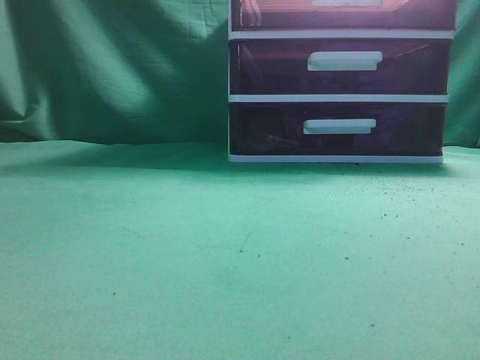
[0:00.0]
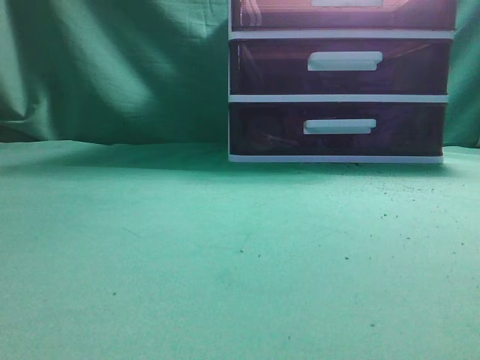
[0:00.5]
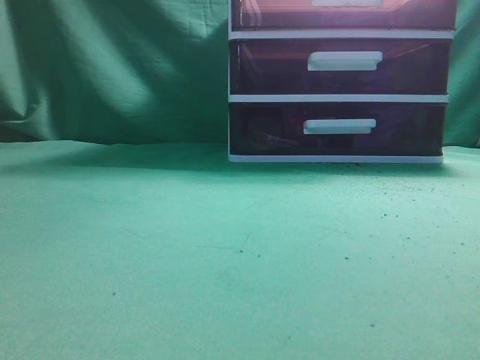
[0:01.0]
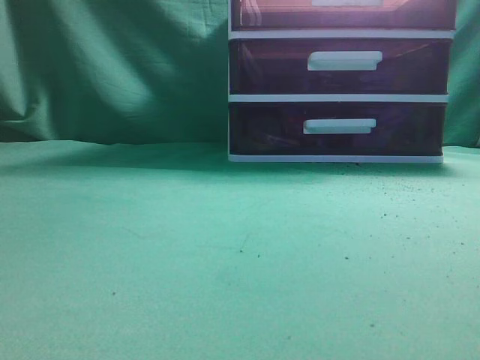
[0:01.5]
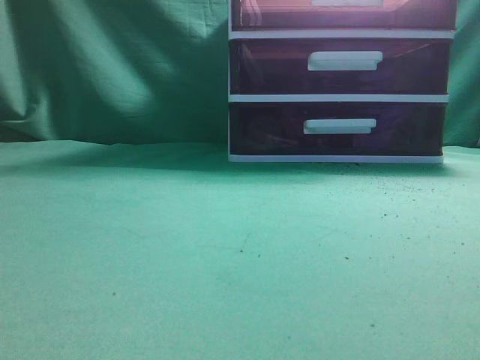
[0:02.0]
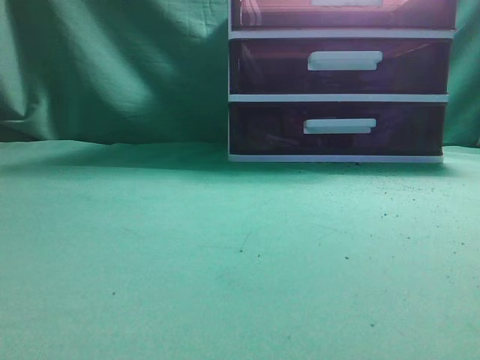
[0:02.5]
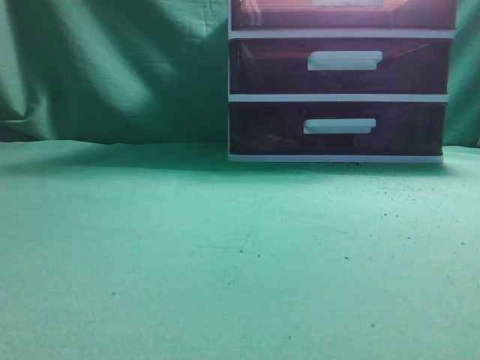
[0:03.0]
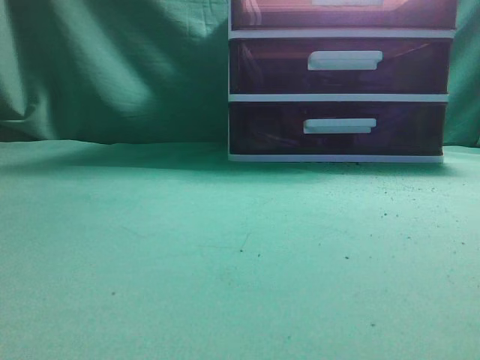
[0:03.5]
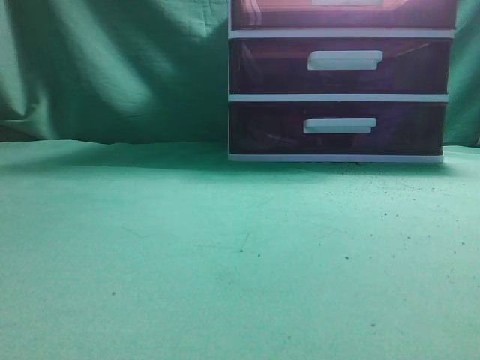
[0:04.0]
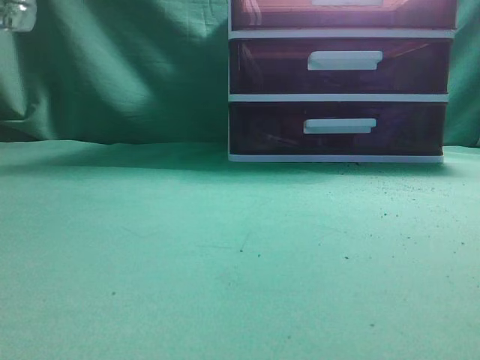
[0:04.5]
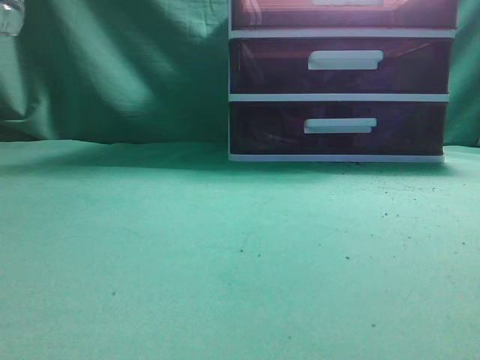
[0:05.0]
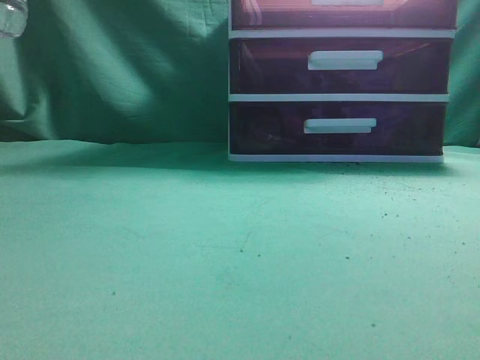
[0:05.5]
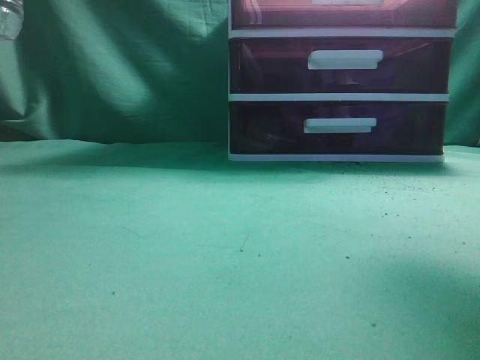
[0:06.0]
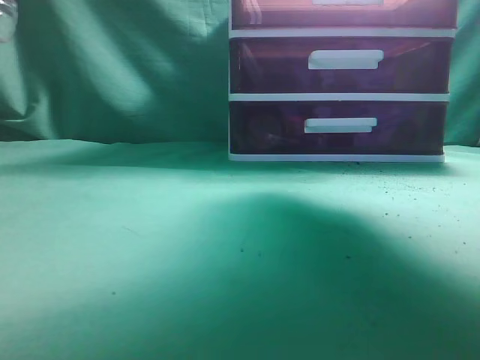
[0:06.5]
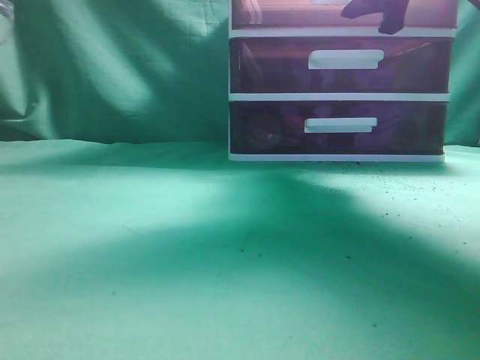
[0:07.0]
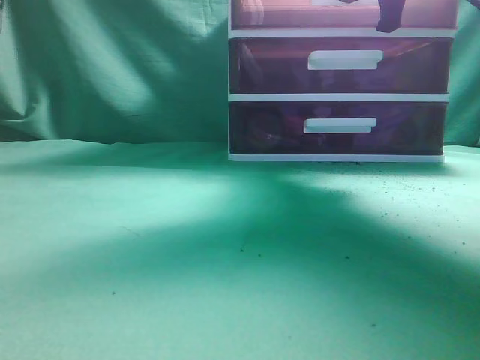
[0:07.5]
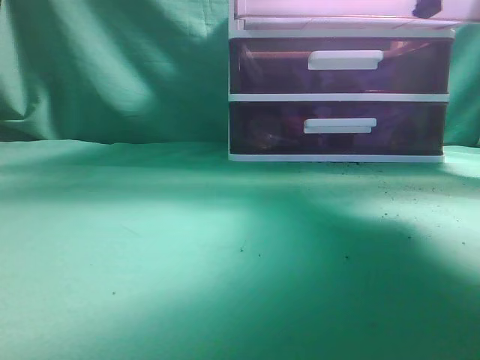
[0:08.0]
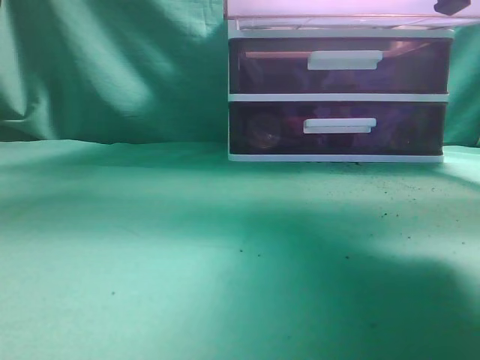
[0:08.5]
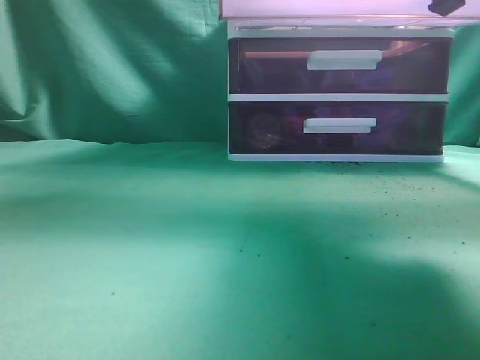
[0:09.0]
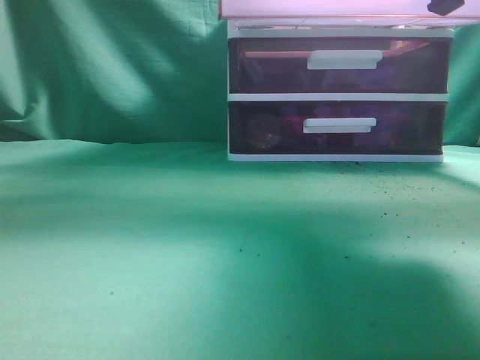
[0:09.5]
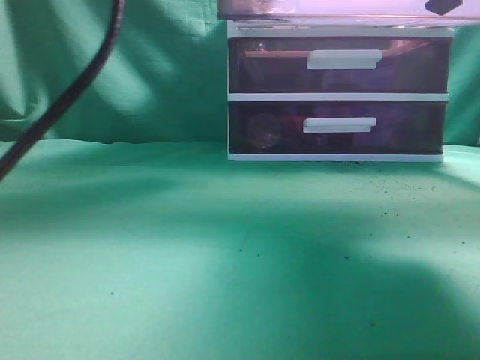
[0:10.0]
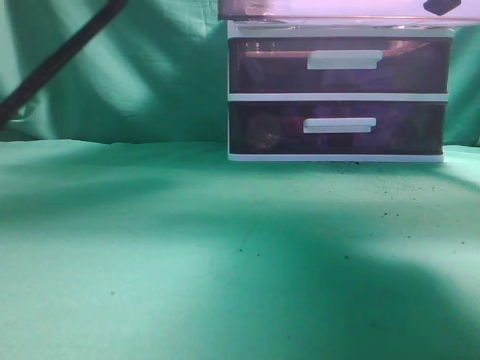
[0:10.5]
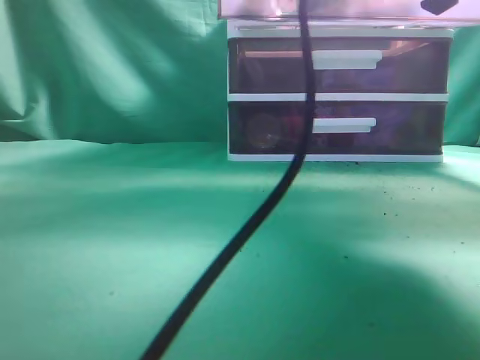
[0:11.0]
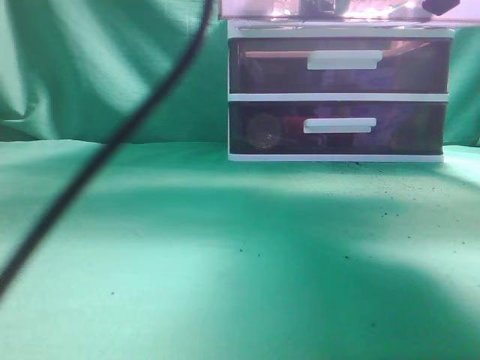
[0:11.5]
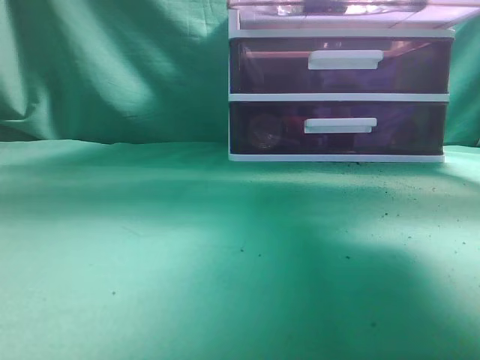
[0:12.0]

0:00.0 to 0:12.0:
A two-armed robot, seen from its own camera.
Task of the whole recording: place the water bottle into the drawer.
Step, 0:00.0 to 0:08.5: Open the drawer.
Step, 0:09.0 to 0:11.5: Place the water bottle inside the drawer.
0:04.0 to 0:06.0: The right gripper heads forward and upward, covering roughly 30 cm, and opens its fingers.
0:06.0 to 0:08.0: The right gripper travels forward and back again, approximately 10 cm each way, and closes.
0:08.0 to 0:10.0: The right gripper shifts by approximately 5 cm. The left gripper is displaced to the right and forward by some 25 cm, and opens.
0:10.0 to 0:12.0: The left gripper moves backward, upward and to the left, about 15 cm, and closes. The right gripper travels forward by roughly 5 cm.

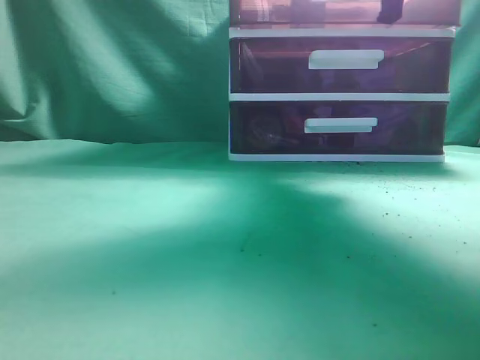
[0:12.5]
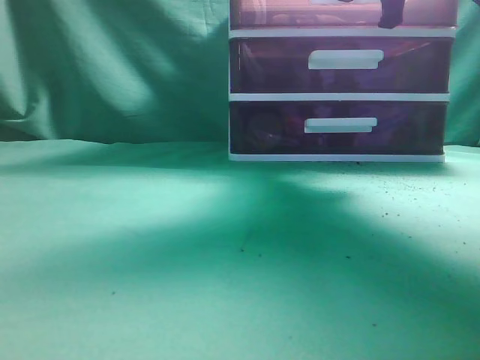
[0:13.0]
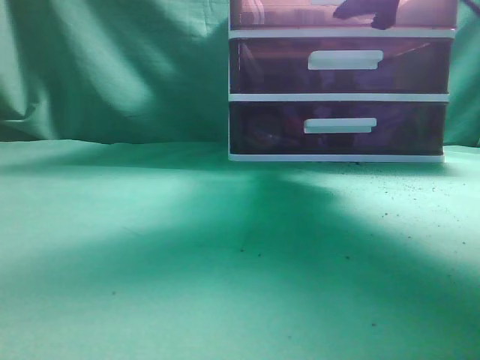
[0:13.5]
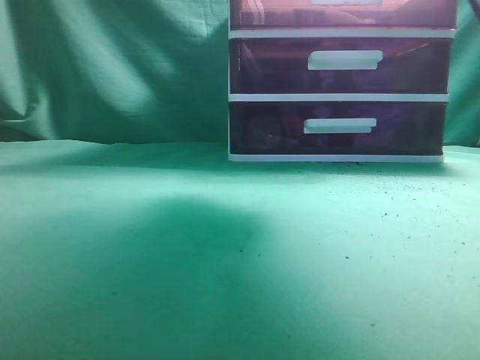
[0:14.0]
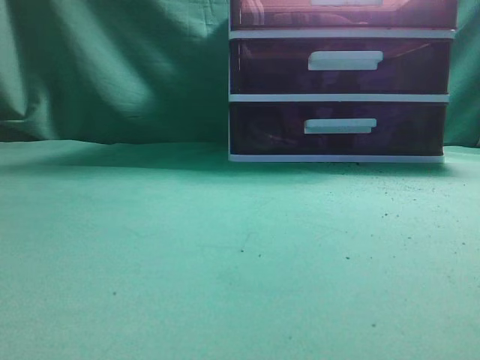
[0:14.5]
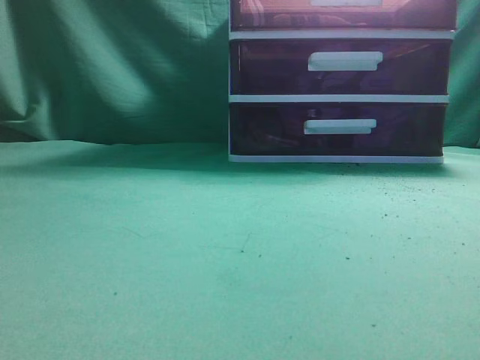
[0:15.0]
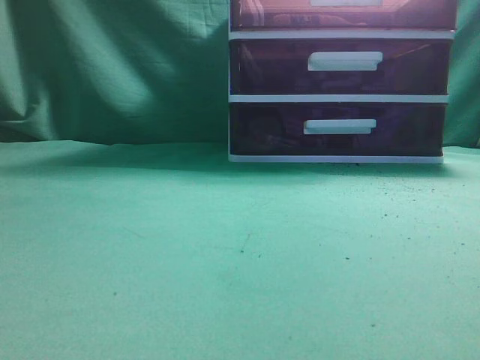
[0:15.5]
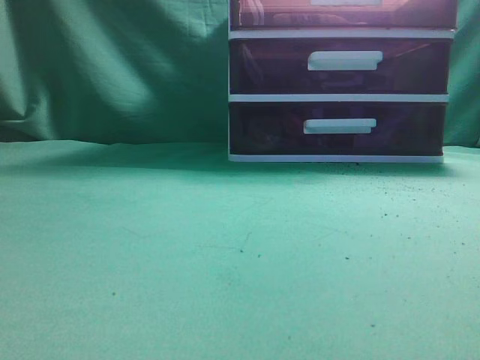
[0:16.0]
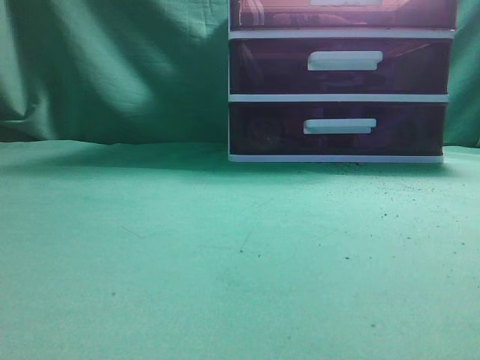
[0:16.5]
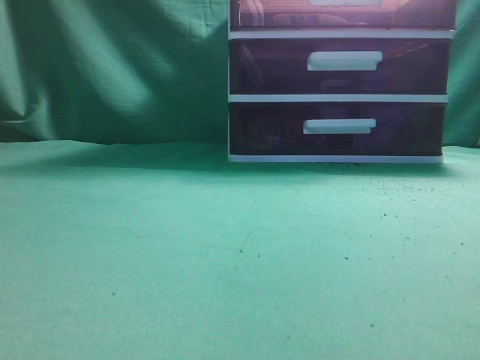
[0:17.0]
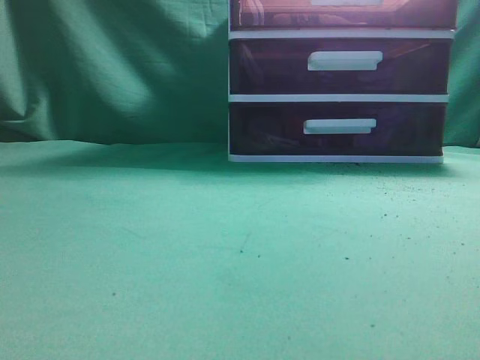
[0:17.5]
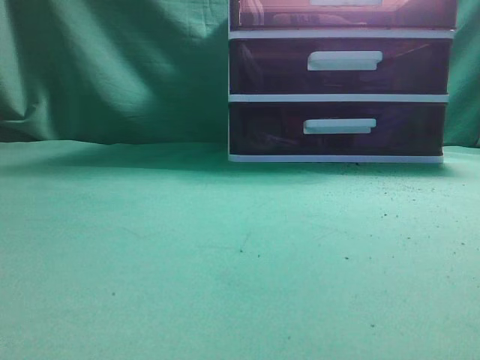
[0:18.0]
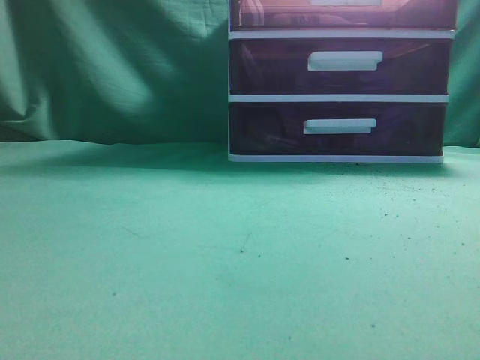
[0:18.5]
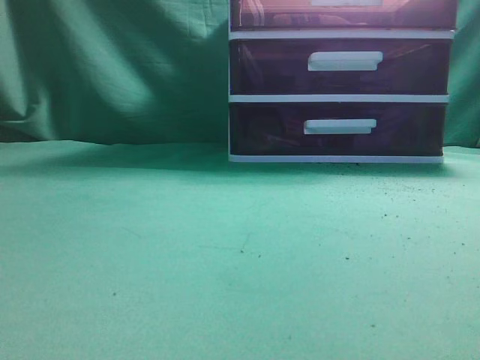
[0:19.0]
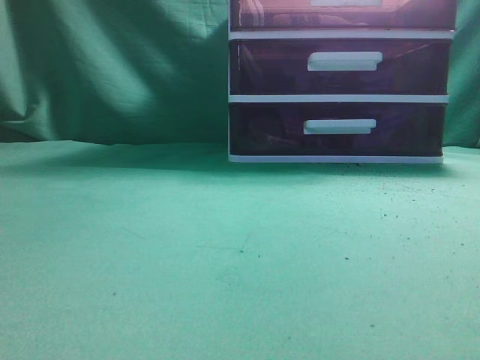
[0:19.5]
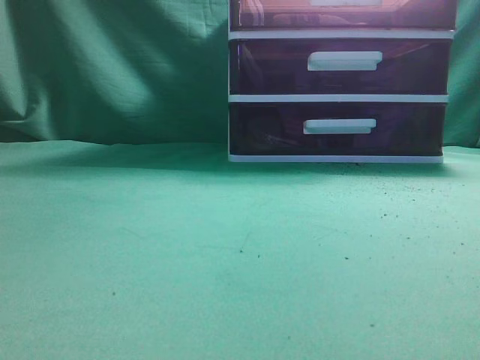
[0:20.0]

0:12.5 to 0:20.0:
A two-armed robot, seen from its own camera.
Task of the whole recording: place the water bottle into the drawer.
Step, 0:12.5 to 0:13.5: Close the drawer.
0:12.5 to 0:14.5: The left gripper shifts about 15 cm backward and to the left; the right gripper shifts some 25 cm backward and upward, and opens and closes again.
